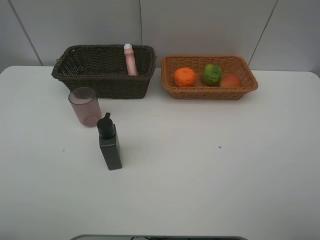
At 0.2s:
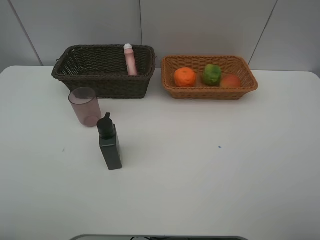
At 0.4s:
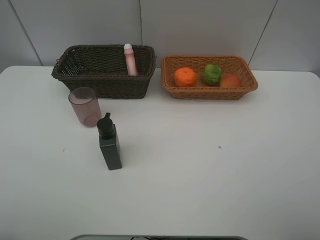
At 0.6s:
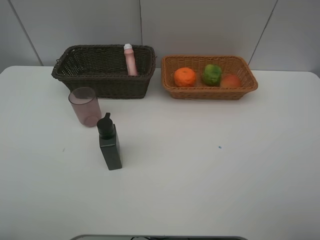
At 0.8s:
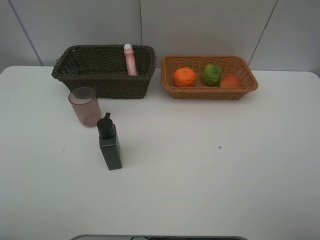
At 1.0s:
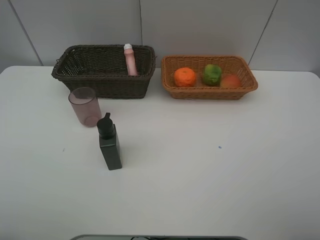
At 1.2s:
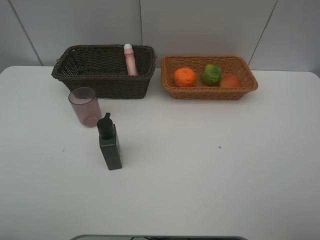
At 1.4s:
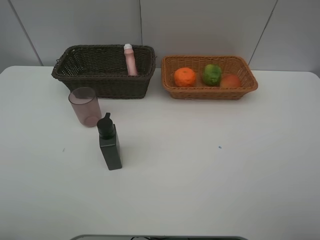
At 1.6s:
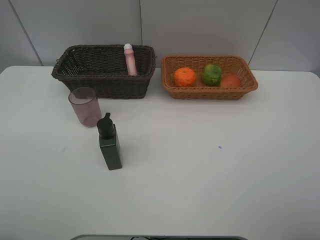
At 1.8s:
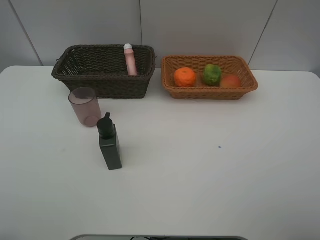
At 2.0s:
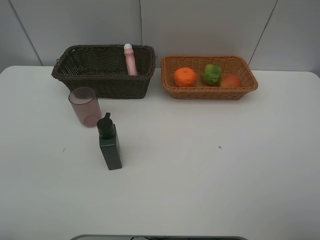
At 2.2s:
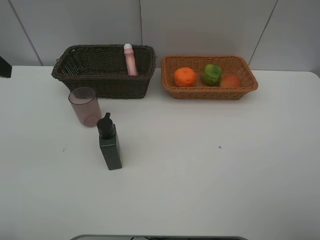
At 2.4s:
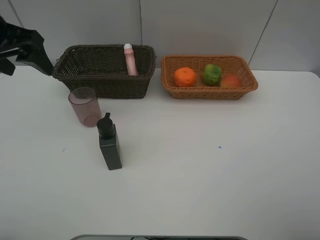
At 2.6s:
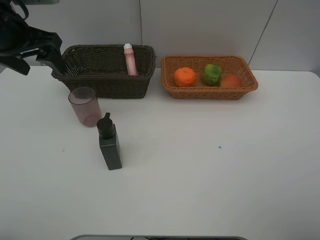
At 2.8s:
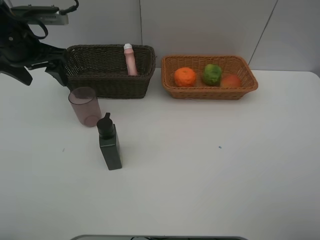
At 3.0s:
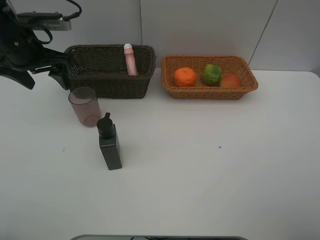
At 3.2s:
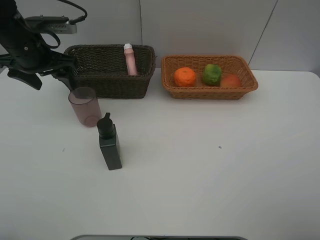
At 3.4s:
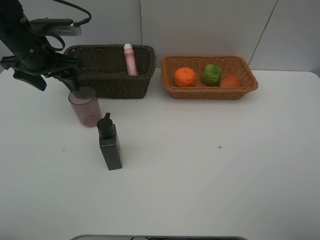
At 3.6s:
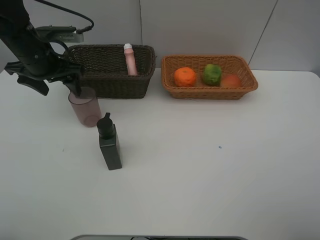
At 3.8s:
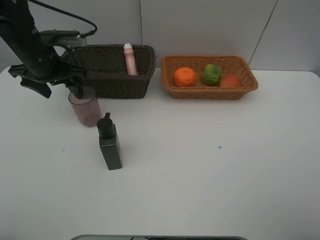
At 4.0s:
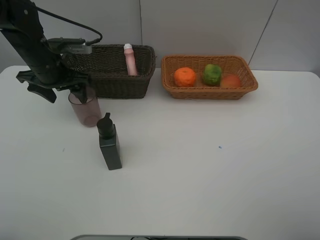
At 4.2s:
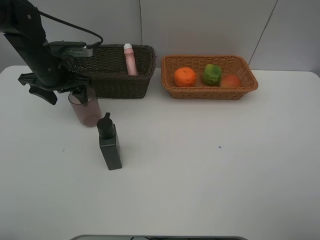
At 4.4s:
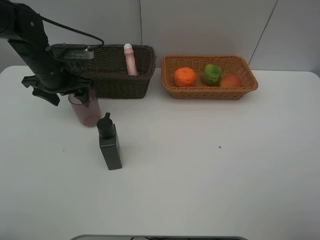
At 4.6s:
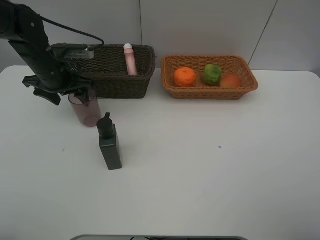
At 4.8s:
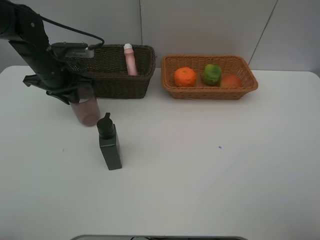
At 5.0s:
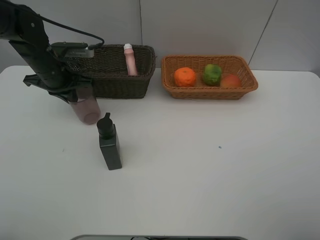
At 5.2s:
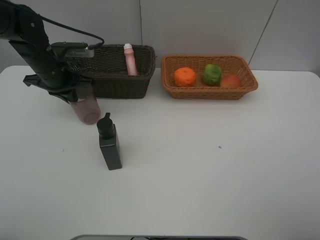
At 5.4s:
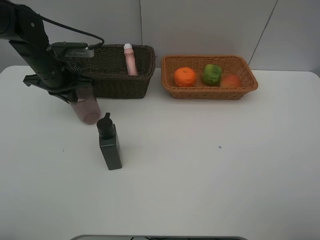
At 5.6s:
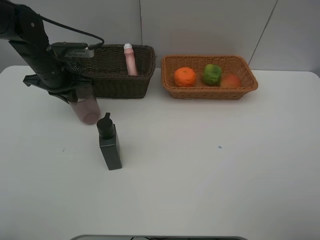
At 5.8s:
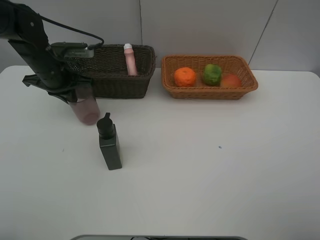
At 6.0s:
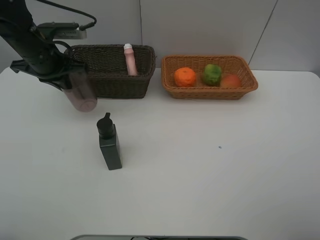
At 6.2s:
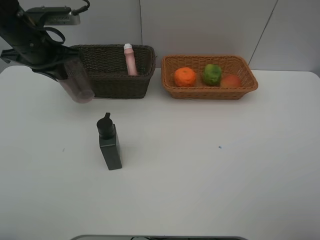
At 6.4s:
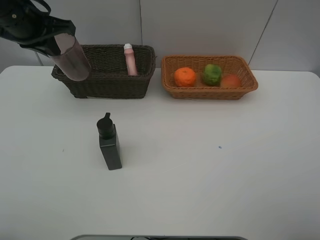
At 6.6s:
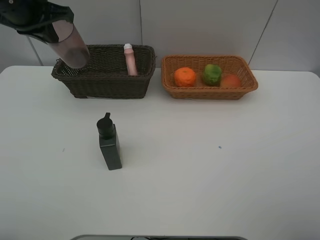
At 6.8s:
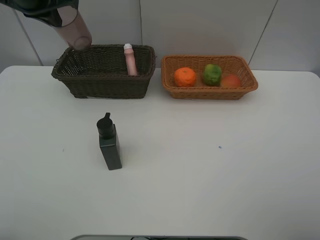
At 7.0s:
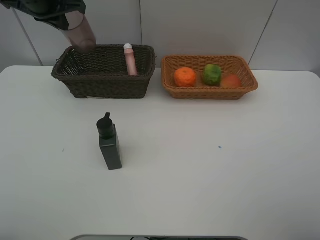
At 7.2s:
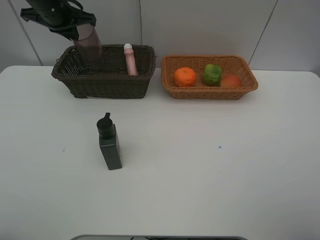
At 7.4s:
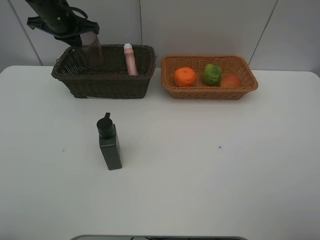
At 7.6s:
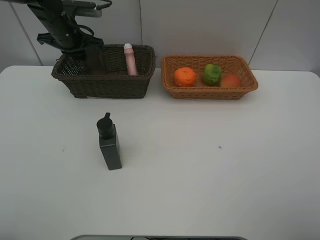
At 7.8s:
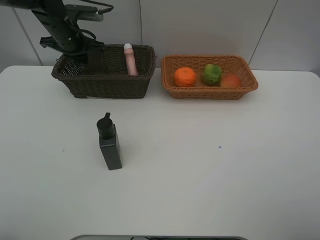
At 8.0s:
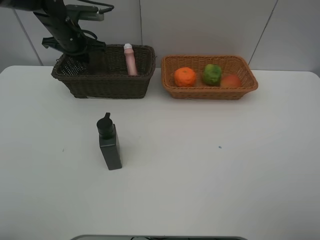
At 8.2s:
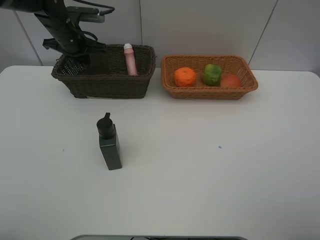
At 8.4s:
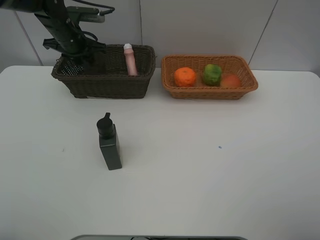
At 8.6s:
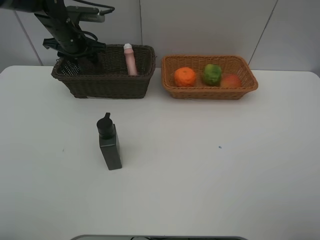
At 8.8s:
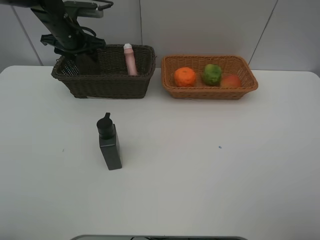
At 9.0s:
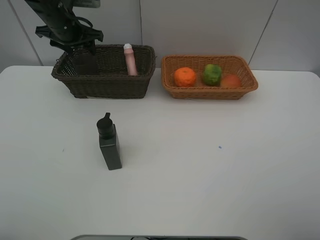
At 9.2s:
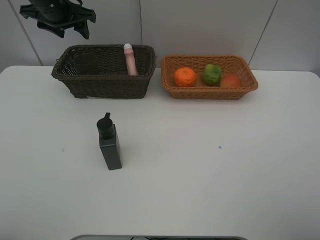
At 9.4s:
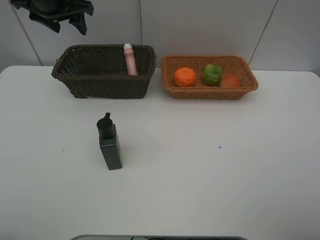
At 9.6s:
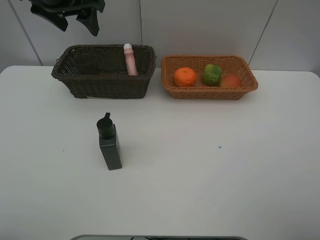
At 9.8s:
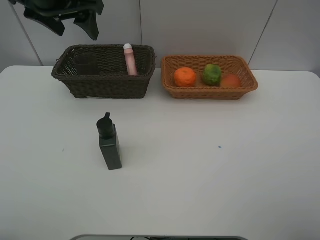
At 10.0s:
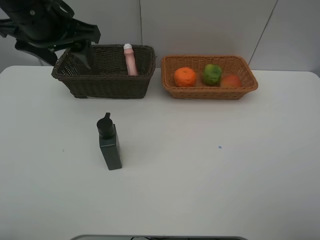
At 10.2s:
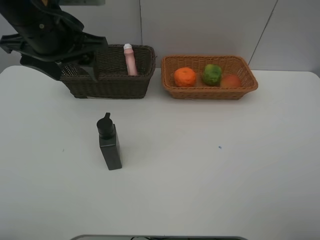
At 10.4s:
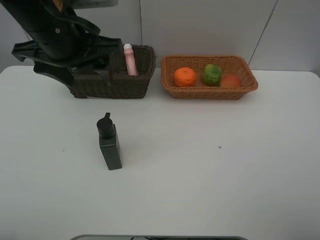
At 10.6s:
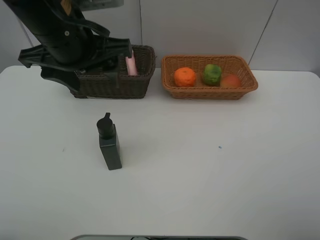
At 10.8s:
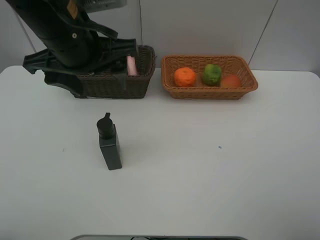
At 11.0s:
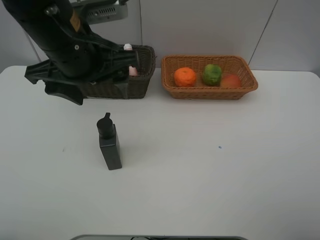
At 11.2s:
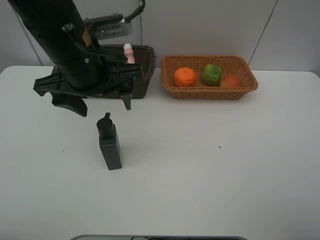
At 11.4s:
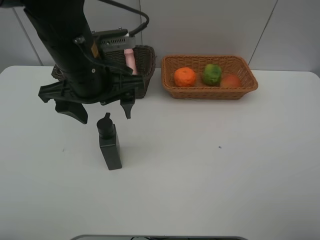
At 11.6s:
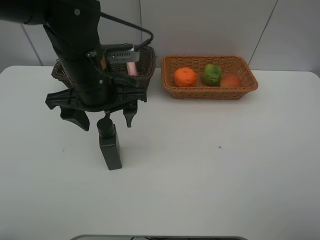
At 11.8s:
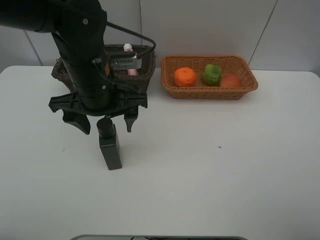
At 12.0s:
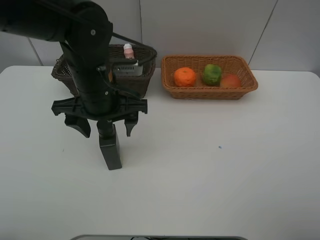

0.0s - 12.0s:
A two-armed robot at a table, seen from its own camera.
Task of the whole recording: place multiple objects separately in different baskets.
1.6s - 3.0s: The left gripper travels forward by approximately 30 cm.
3.0s - 4.4s: The left gripper heads downward, covering approximately 5 cm.
4.4s - 6.0s: The left gripper closes.
6.0s - 7.6s: The left gripper goes roughly 10 cm forward.
7.6s - 9.0s: The left gripper opens its fingers.
9.0s - 10.4s: The left gripper travels backward and to the right by some 20 cm.
10.4s - 12.0s: The left gripper travels downward by roughly 10 cm.

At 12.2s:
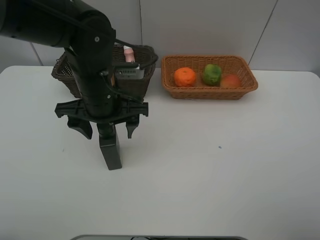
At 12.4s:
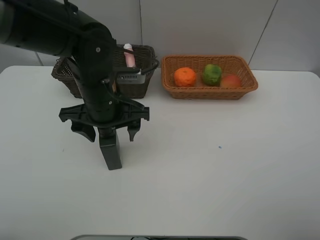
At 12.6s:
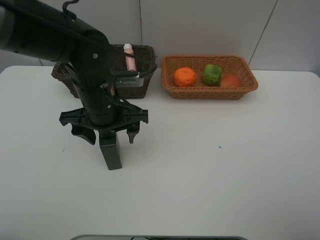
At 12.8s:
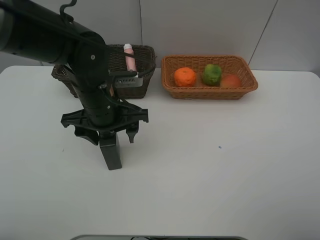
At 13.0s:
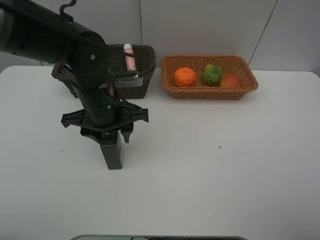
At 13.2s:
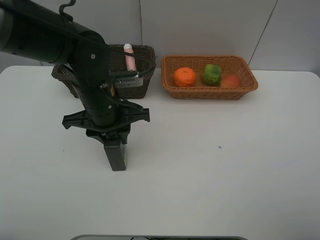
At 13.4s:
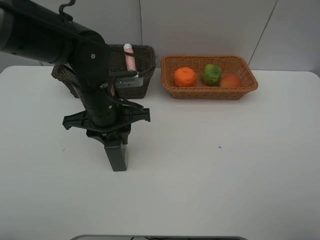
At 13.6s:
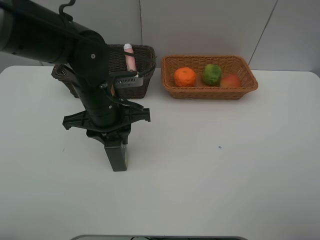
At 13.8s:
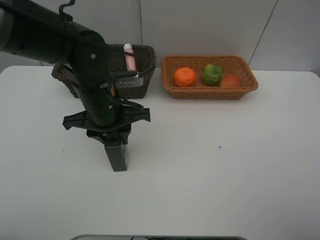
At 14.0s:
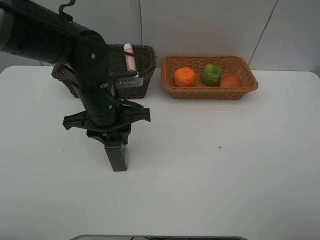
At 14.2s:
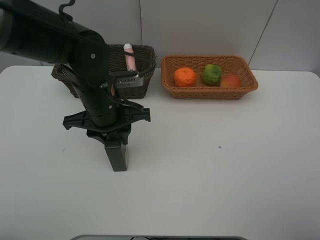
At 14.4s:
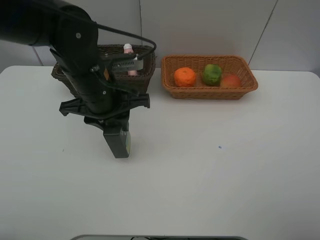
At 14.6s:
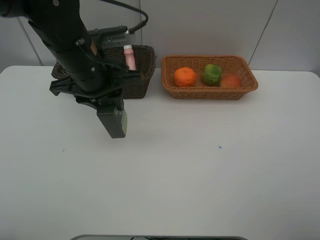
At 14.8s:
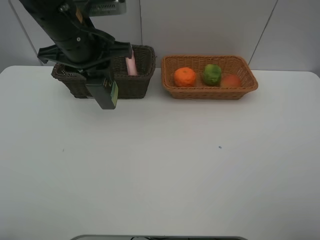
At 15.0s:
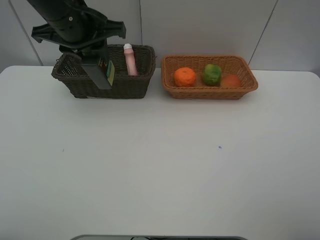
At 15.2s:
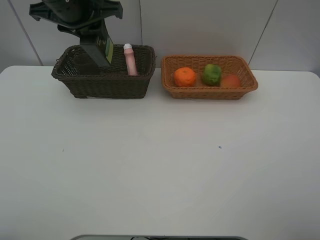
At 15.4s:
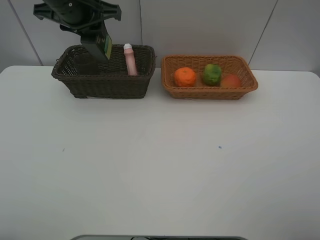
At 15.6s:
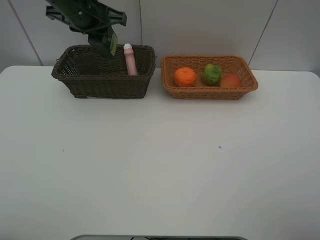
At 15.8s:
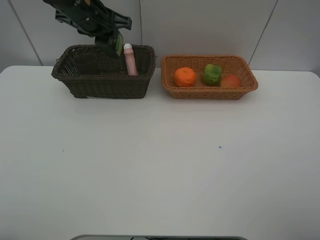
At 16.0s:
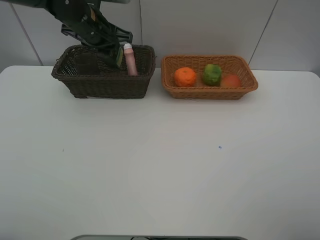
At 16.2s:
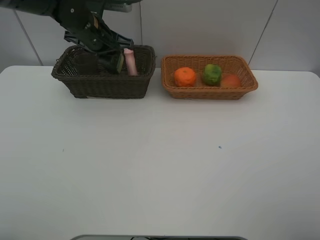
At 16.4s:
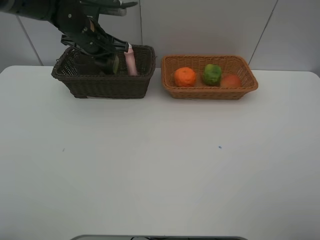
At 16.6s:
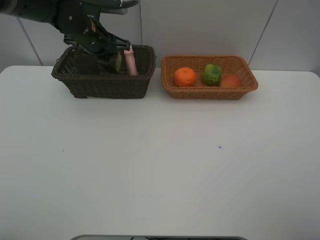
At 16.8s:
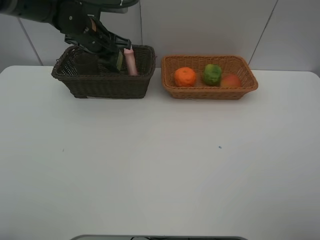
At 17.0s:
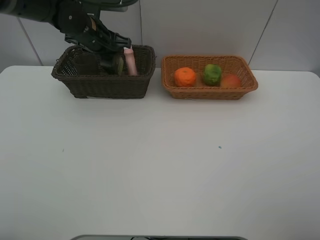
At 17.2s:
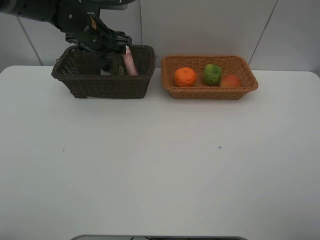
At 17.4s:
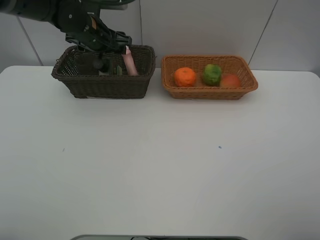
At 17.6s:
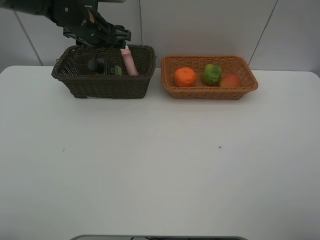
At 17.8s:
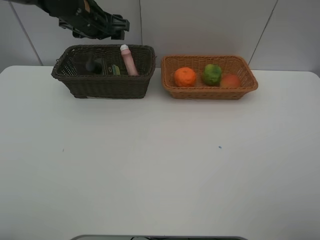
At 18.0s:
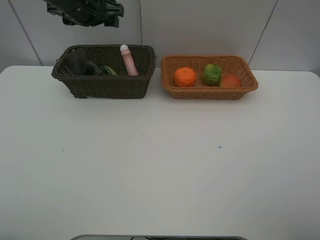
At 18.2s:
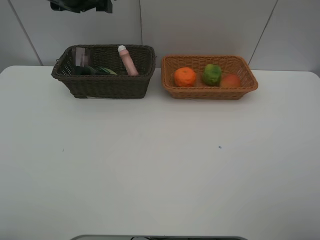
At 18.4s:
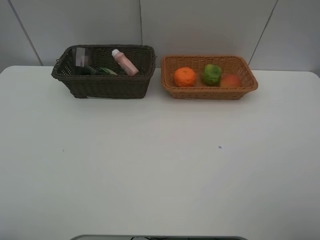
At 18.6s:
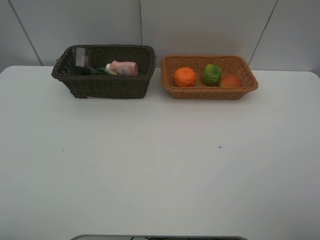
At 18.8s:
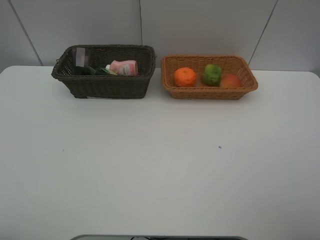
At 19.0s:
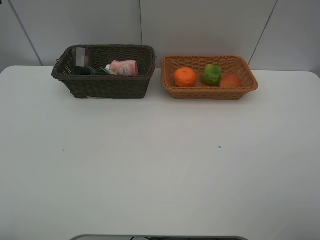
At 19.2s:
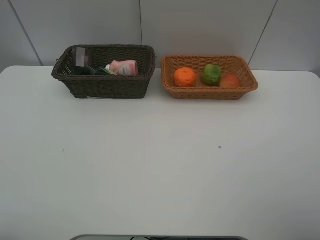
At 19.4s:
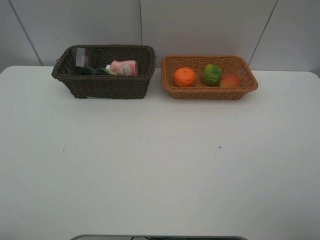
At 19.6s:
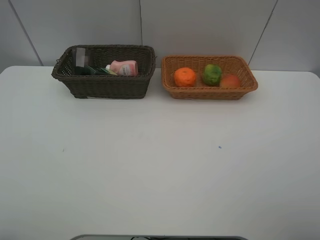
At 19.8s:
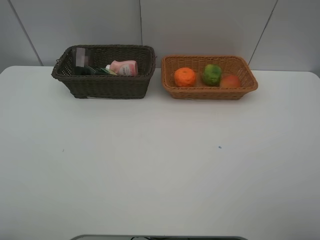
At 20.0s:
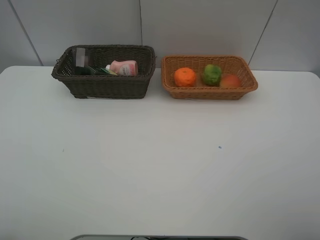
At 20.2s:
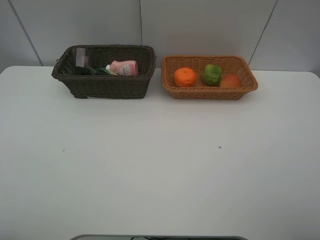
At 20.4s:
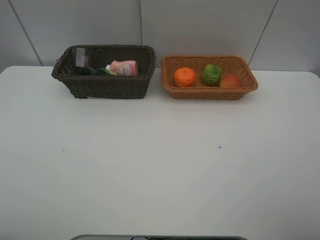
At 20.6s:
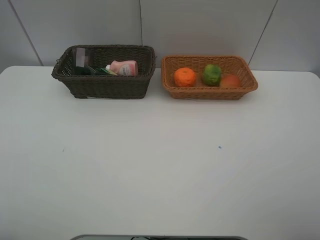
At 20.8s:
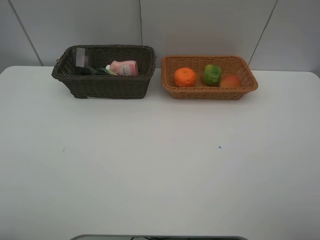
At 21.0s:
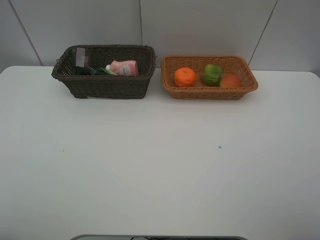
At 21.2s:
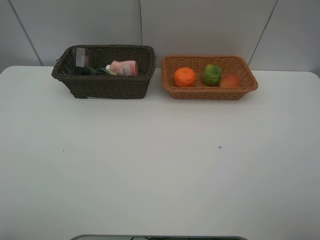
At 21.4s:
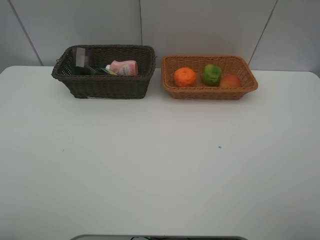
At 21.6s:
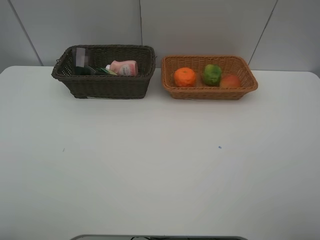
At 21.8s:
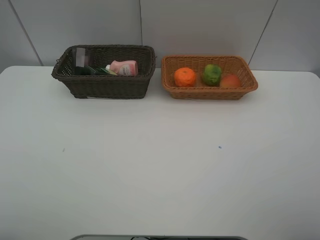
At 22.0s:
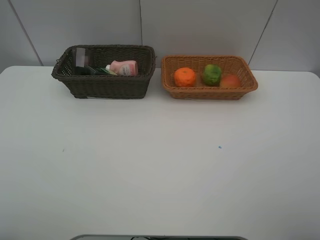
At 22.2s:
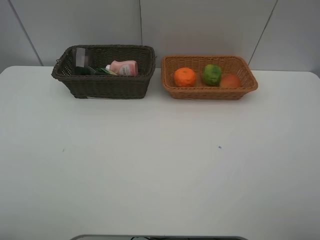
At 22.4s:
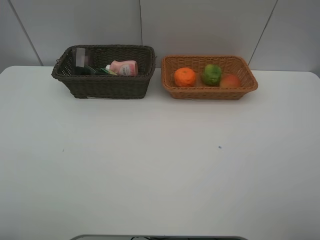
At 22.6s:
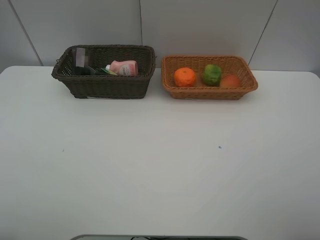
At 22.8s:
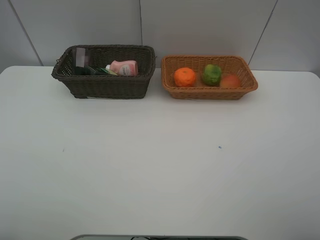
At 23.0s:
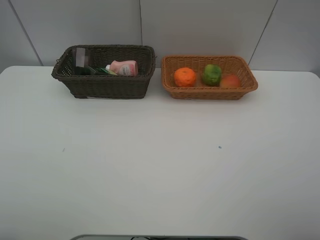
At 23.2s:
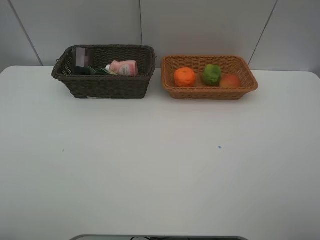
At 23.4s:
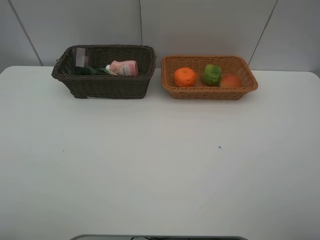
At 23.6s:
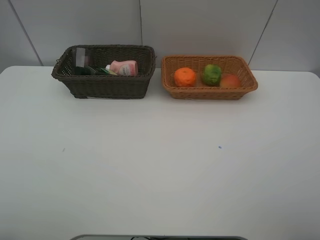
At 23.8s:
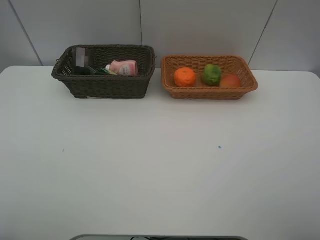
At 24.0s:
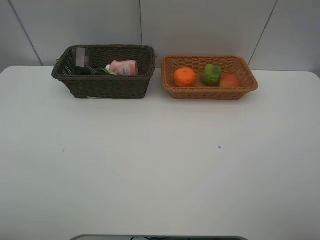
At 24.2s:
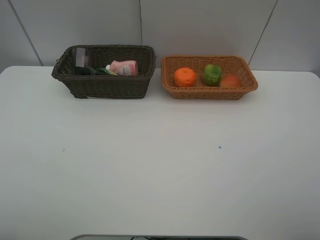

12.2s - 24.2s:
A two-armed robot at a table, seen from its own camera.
Task of the whole recording: place multiple objects separately in different baskets.
12.2s - 13.8s: The left gripper closes its fingers.
13.8s - 15.2s: The left gripper shifts approximately 20 cm upward, forward and to the left.
15.2s - 16.6s: The left gripper moves downward and forward, some 10 cm.
16.6s - 18.2s: The left gripper shifts some 10 cm upward, and opens up.
18.2s - 19.8s: The left gripper moves backward, about 35 cm.
22.6s - 24.2s: Both grippers stay about where they are.
